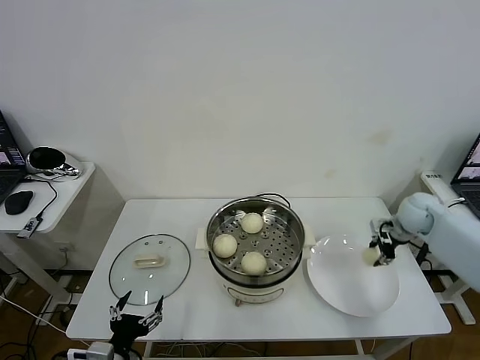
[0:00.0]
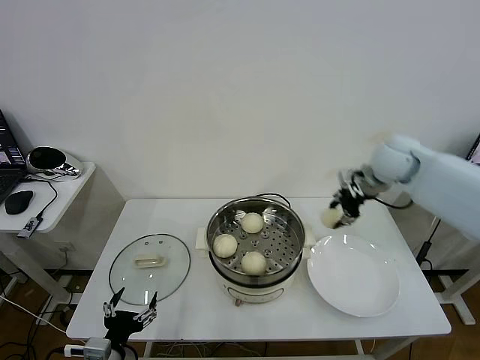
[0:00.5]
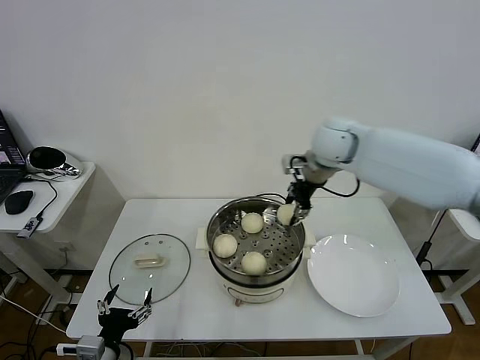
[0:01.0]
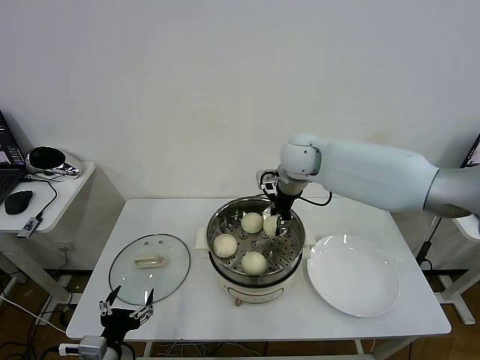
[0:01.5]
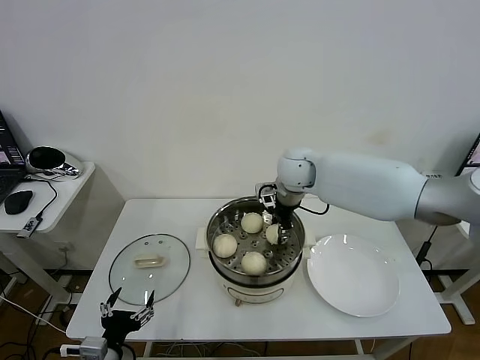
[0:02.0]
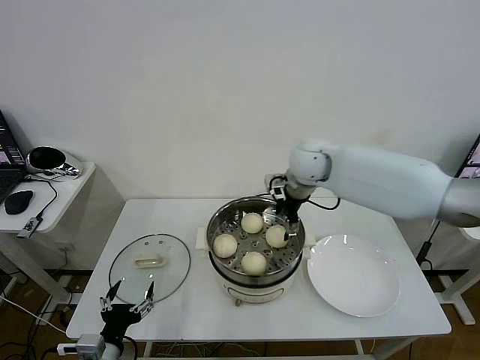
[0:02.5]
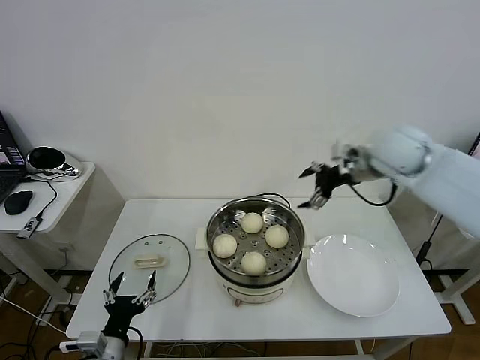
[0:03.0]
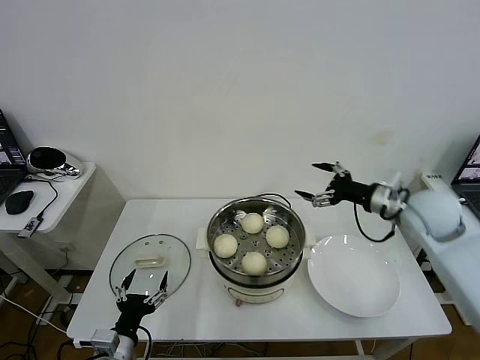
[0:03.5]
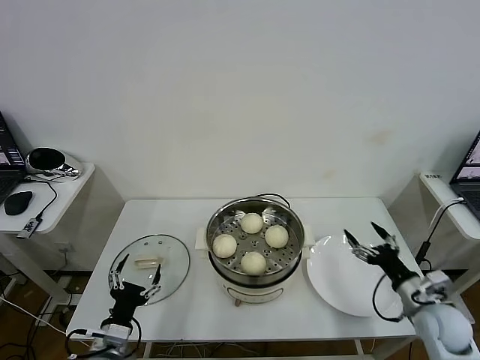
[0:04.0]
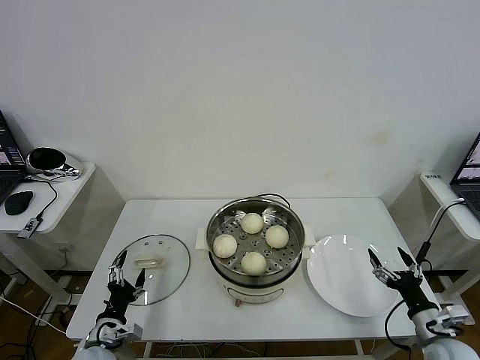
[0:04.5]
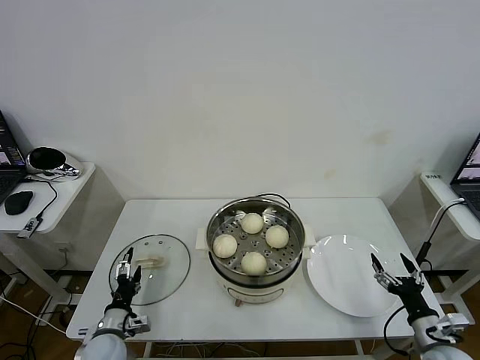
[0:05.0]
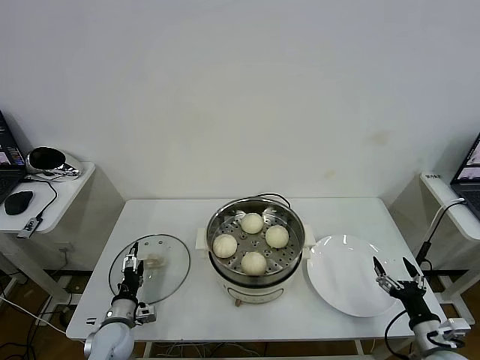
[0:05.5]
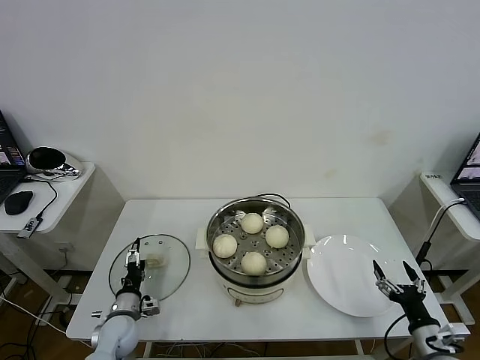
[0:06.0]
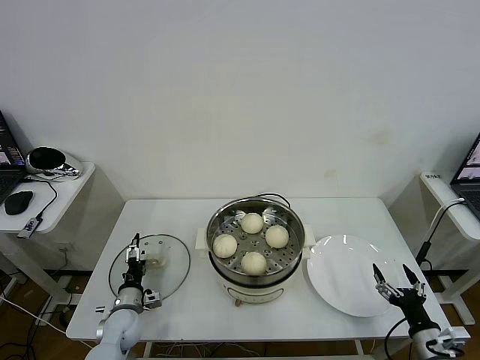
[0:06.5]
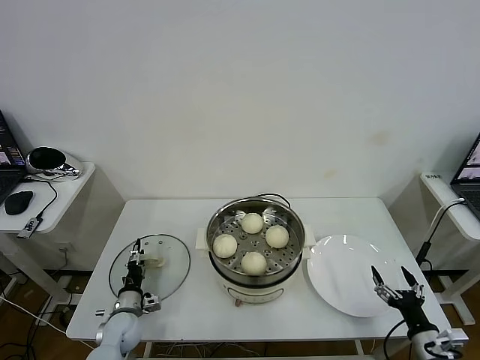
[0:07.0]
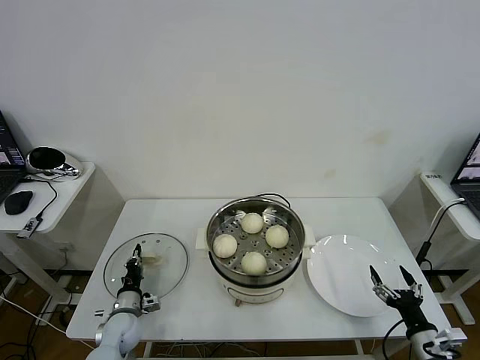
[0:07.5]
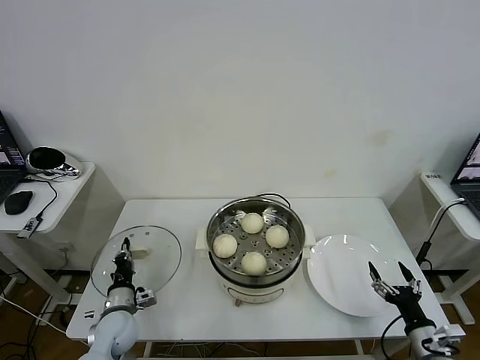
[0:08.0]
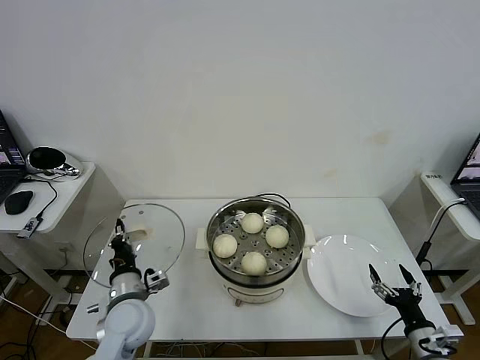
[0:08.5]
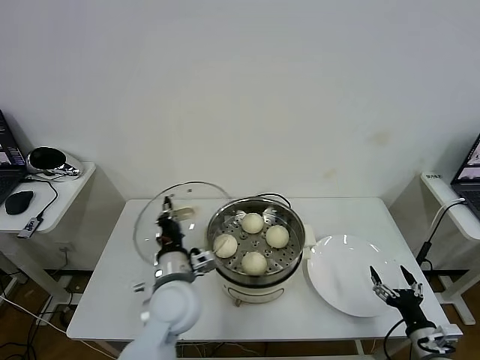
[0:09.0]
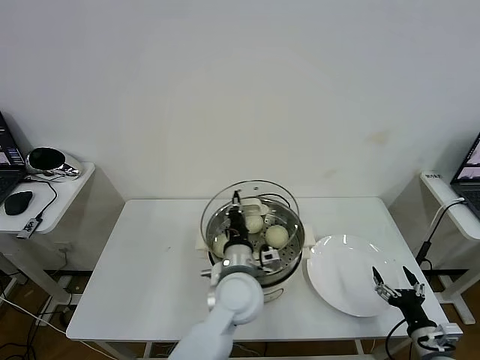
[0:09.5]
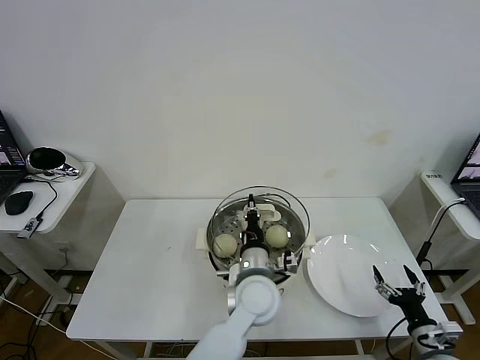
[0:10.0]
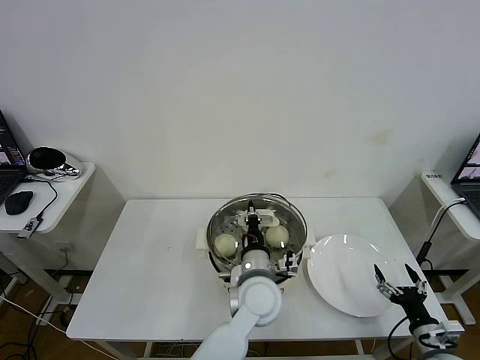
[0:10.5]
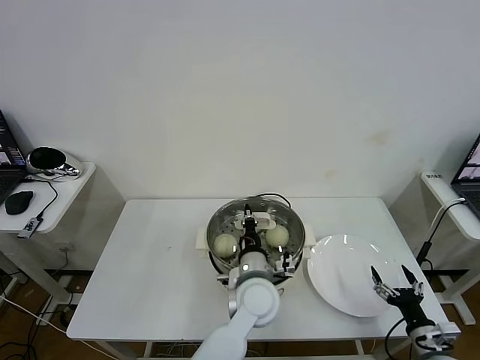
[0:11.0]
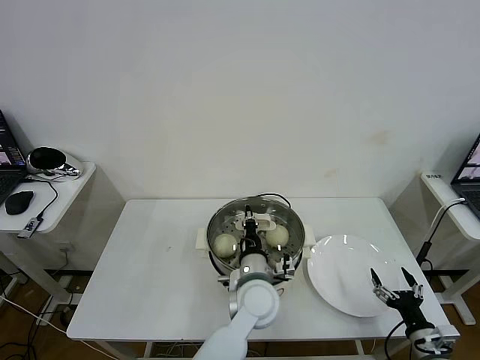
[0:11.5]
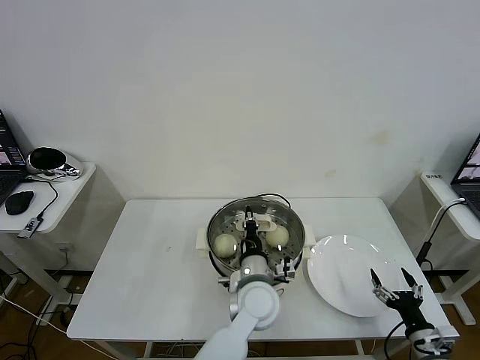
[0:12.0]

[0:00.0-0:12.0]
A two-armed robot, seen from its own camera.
Task of the whole recording: take steamed baozi put them in steamer then cover it.
Step, 0:00.0 to 0:02.0: Place the baozi on the steamer with right gripper.
Step, 0:02.5 to 0:07.5: Grasp the pot lid with left gripper.
0:00.0 to 0:02.0: The right gripper travels to the left by approximately 30 cm.
0:02.0 to 0:04.0: The right gripper heads to the right, backward and downward, covering roughly 40 cm, and opens up.
0:04.0 to 0:06.0: The right gripper is displaced backward and downward by roughly 10 cm. Meanwhile the left gripper goes roughly 15 cm forward and downward.
0:06.0 to 0:08.0: The left gripper closes.
0:08.0 to 0:10.0: The left gripper goes approximately 40 cm to the right and upward.
0:10.0 to 0:12.0: The grippers make only small movements.

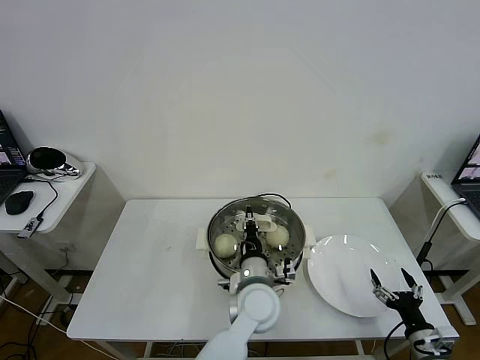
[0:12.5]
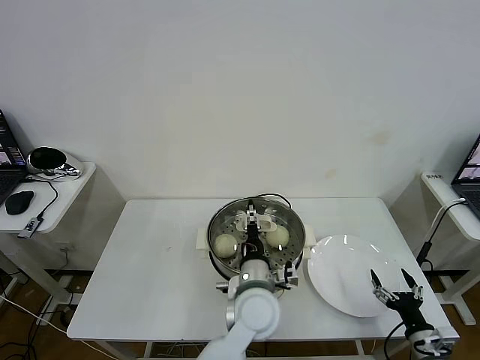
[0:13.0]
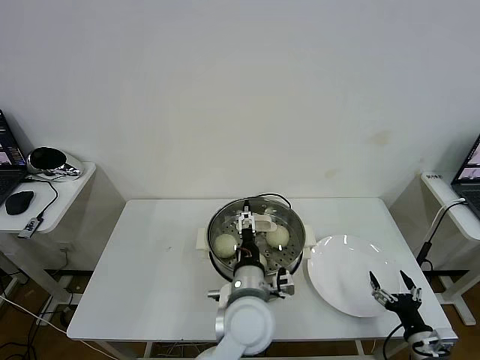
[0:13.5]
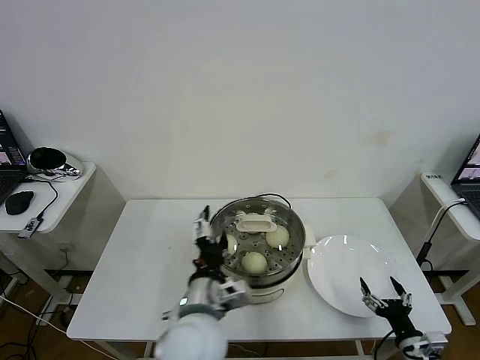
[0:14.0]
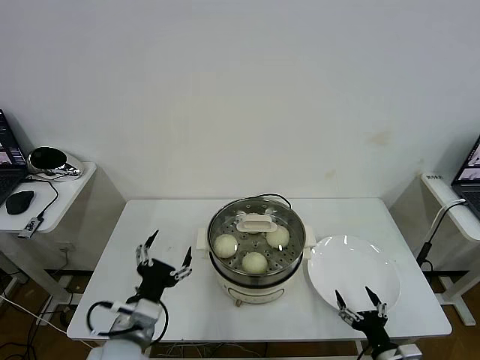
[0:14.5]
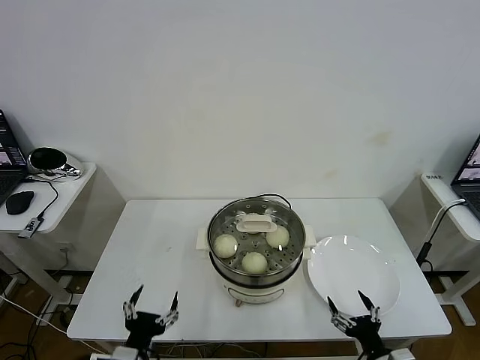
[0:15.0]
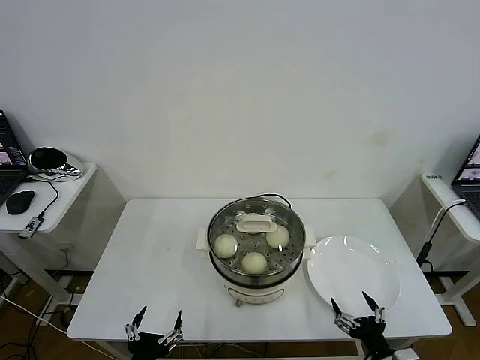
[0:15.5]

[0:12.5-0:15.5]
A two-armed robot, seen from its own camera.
Task of the whole recording: take steamed baozi put them in steamer then cover it.
0:12.5 to 0:14.0: The left gripper heads to the left, backward and upward, covering about 15 cm, and opens.
0:14.0 to 0:15.5: The right gripper is displaced to the left by roughly 5 cm, while the left gripper goes about 25 cm to the left, backward and downward.

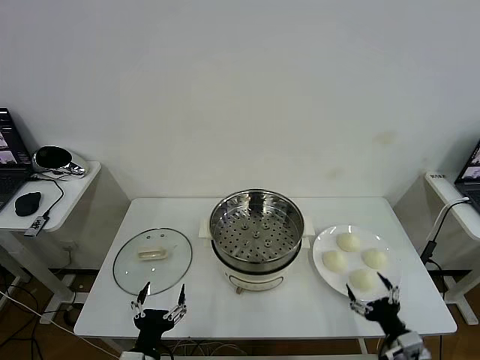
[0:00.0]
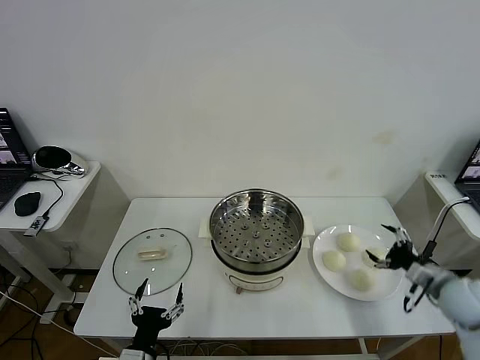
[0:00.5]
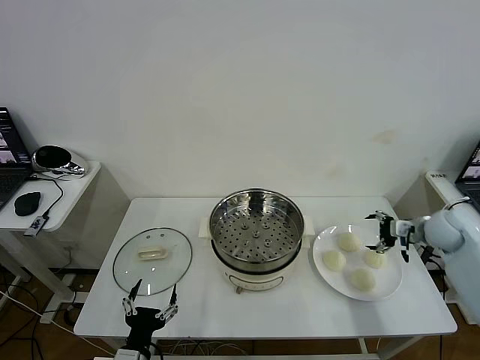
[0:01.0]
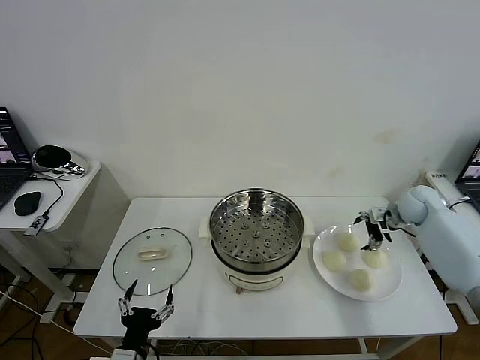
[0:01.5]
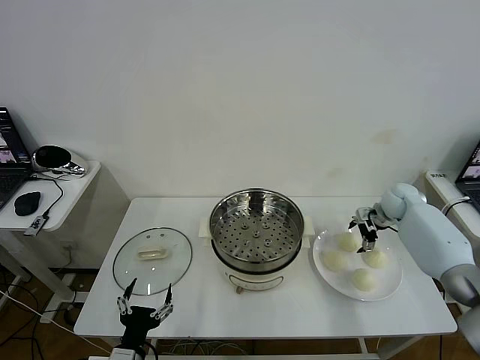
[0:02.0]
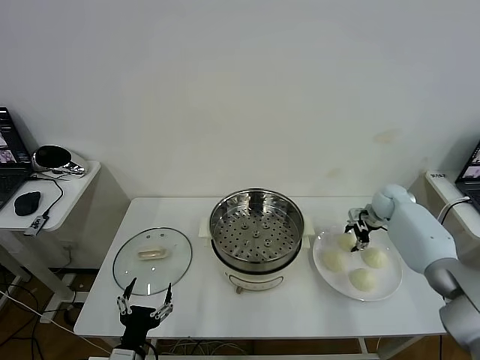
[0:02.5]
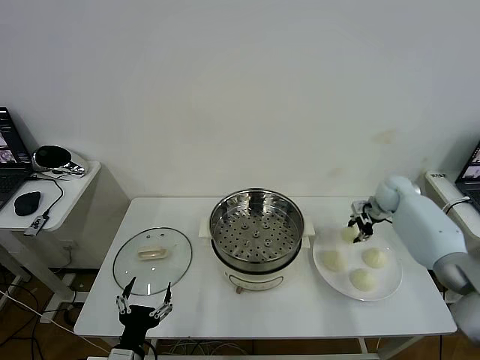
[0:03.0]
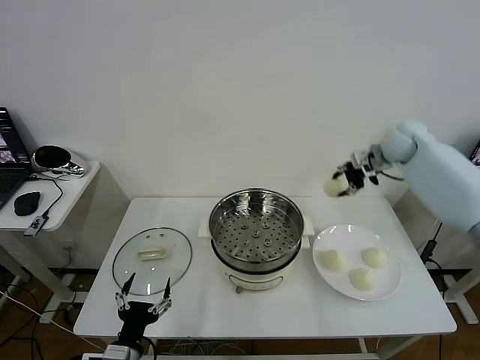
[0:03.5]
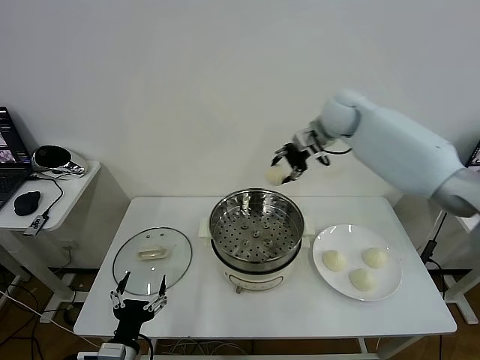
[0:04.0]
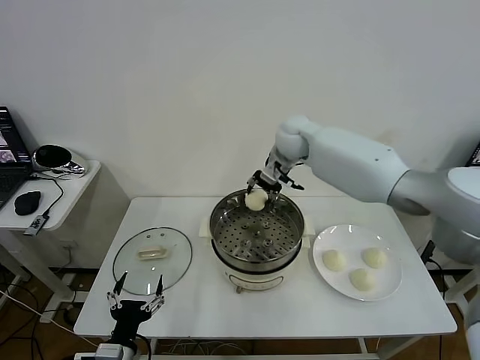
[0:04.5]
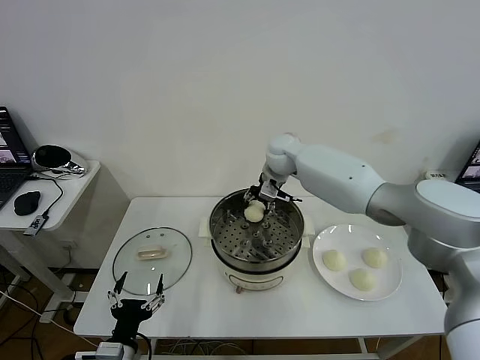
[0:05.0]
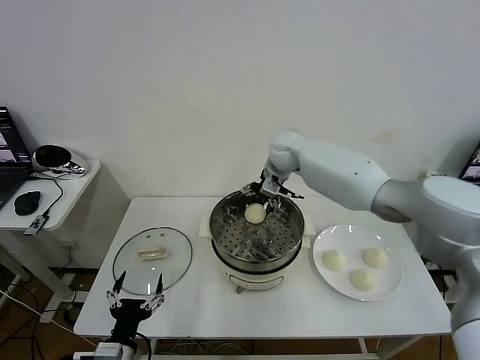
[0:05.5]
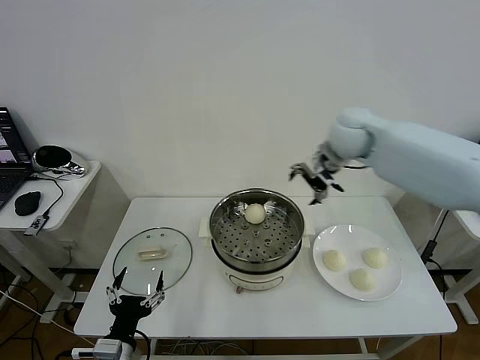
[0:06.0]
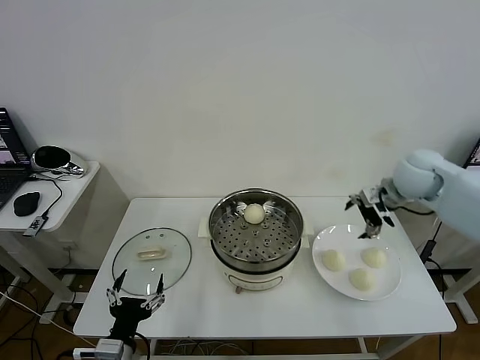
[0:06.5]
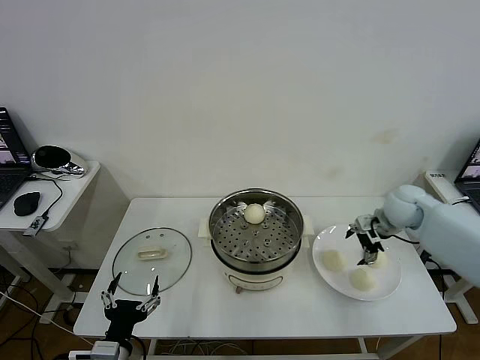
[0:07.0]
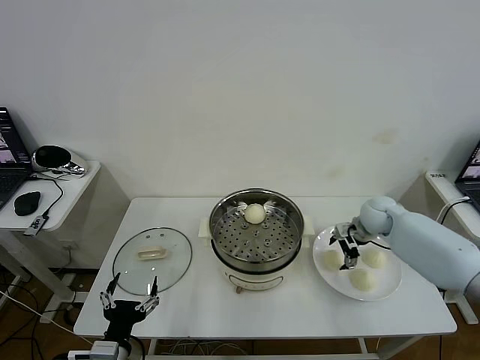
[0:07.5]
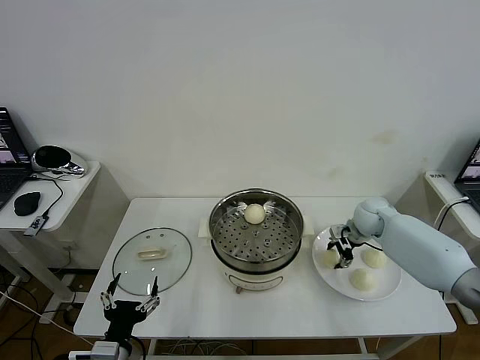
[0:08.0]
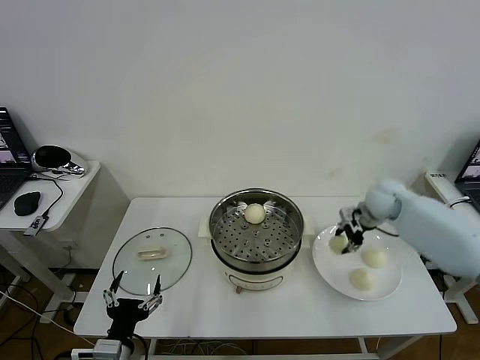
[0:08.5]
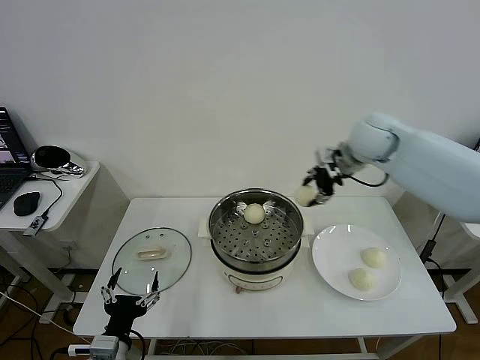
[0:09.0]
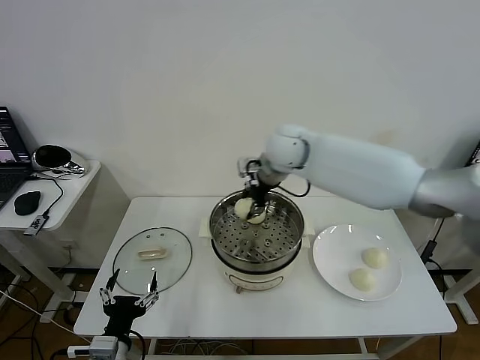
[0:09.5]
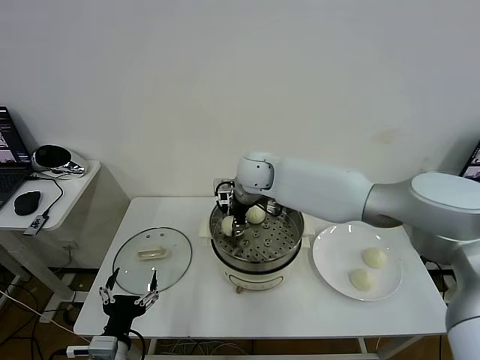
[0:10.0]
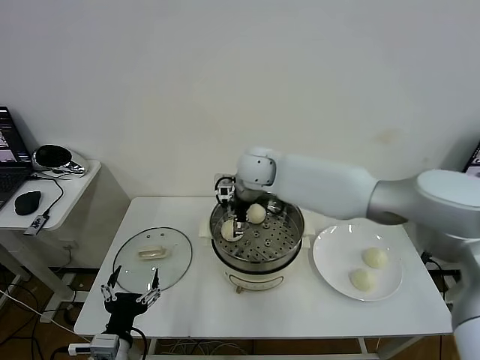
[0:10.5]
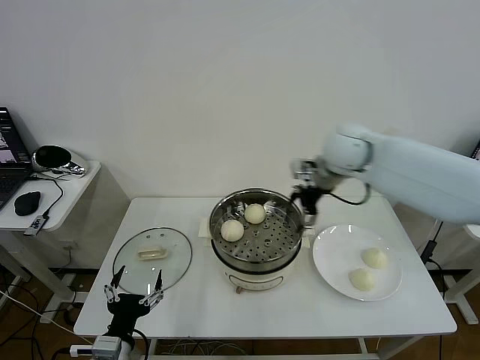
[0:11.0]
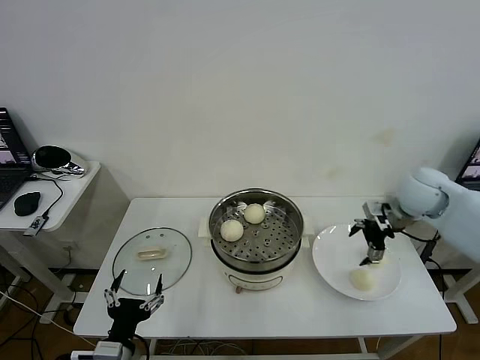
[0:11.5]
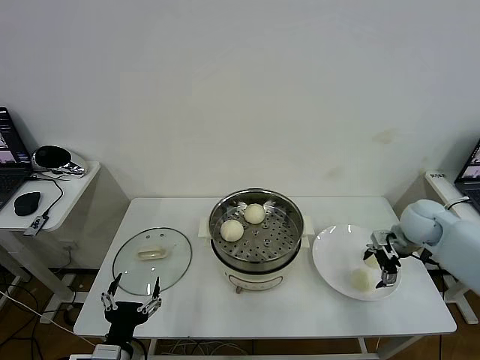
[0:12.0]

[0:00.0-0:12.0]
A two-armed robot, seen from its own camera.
Task of the whole recording: take steamed baozi put them in steamer then cover it.
Step, 0:00.0 to 0:02.5: Grasp the baozi in the plate with right gripper.
Step, 0:03.0 to 0:05.0: Place the baozi on the steamer with right gripper.
Step, 0:05.5 to 0:08.0: Grasp the baozi in the plate with right gripper.
Step, 0:08.5 to 0:10.5: Place the baozi on the steamer with right gripper.
0:02.0 to 0:04.0: The right gripper is displaced to the left and upward by about 35 cm, and closes up.
0:04.0 to 0:06.0: The right gripper heads to the right and backward, covering some 10 cm, and opens.
0:06.0 to 0:08.0: The right gripper shifts about 25 cm downward, and closes up.
0:08.0 to 0:10.0: The right gripper travels to the left and upward by roughly 35 cm.
0:10.0 to 0:12.0: The right gripper goes approximately 40 cm to the right, and opens up.
